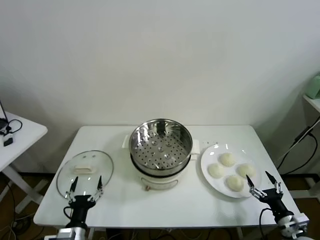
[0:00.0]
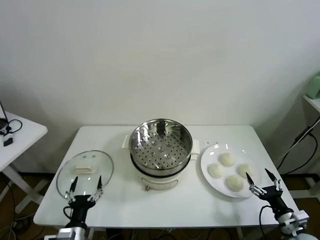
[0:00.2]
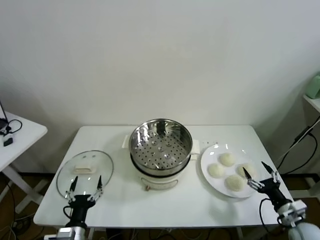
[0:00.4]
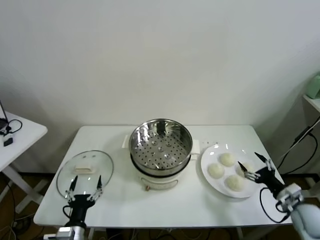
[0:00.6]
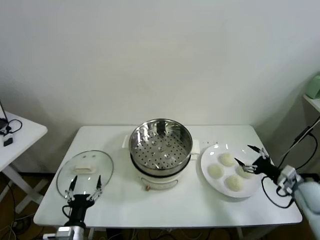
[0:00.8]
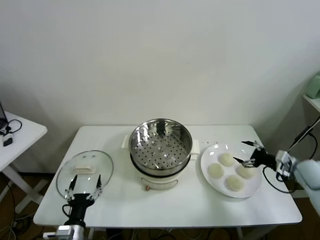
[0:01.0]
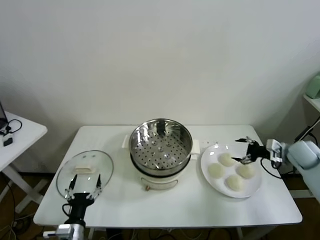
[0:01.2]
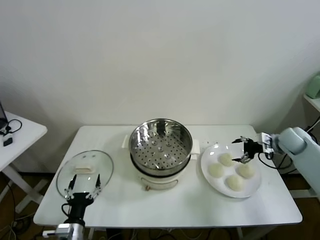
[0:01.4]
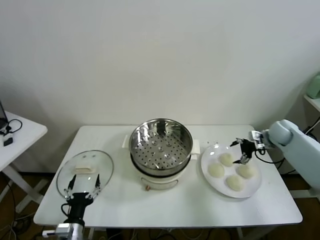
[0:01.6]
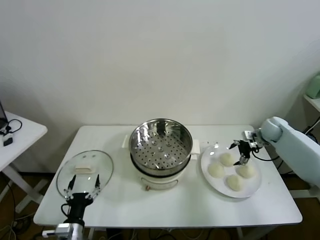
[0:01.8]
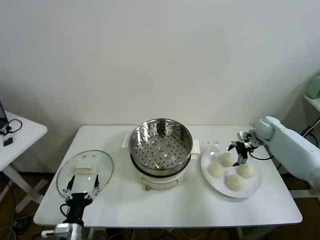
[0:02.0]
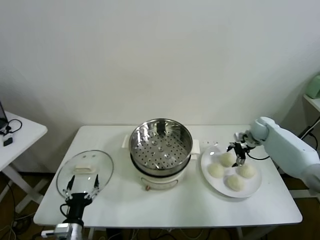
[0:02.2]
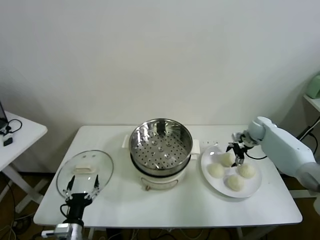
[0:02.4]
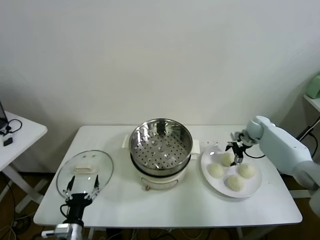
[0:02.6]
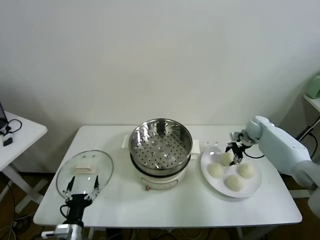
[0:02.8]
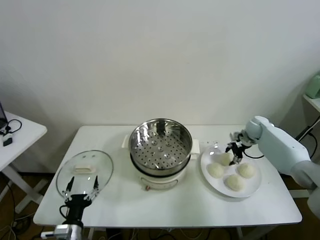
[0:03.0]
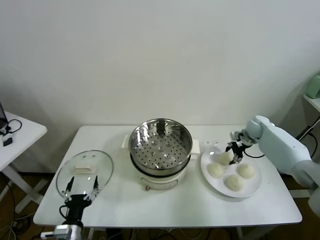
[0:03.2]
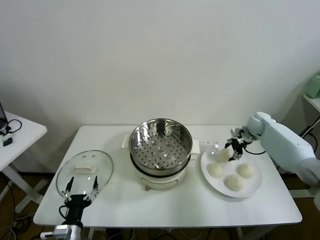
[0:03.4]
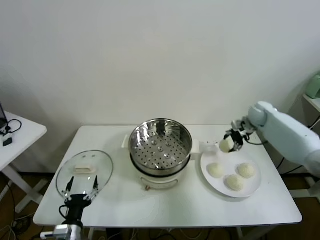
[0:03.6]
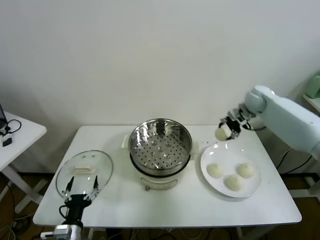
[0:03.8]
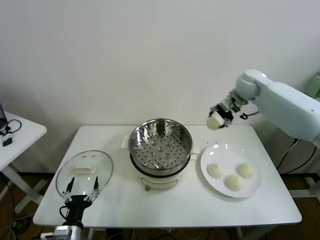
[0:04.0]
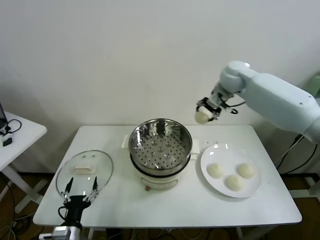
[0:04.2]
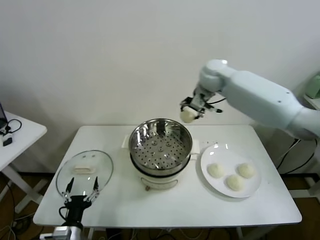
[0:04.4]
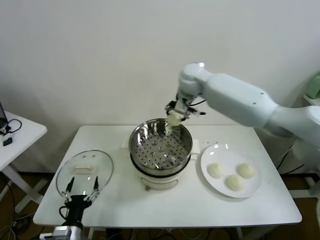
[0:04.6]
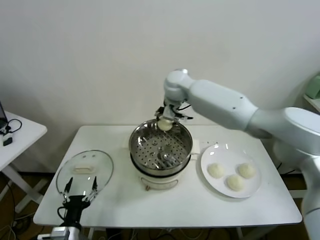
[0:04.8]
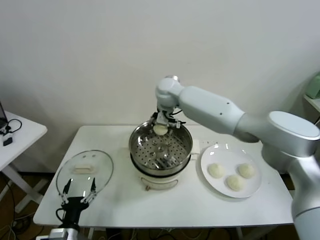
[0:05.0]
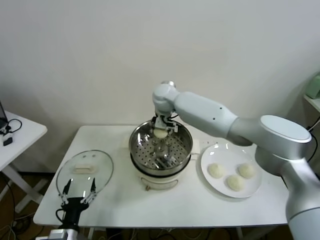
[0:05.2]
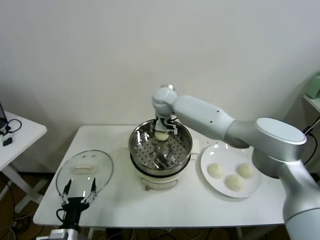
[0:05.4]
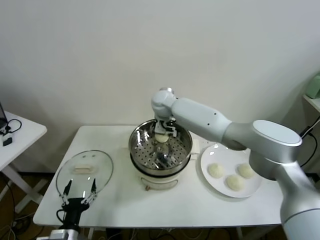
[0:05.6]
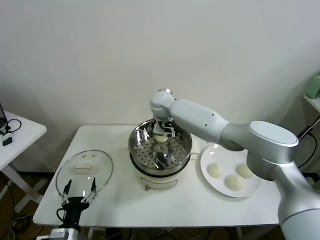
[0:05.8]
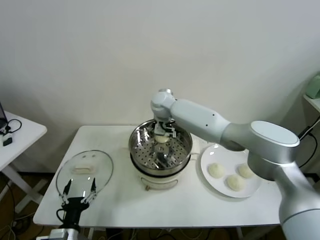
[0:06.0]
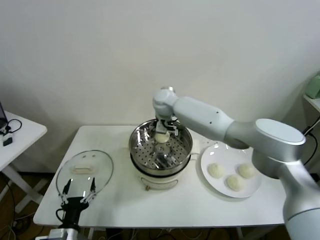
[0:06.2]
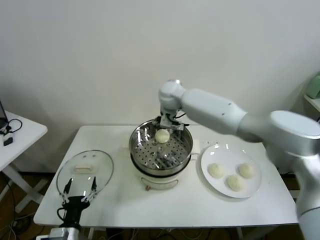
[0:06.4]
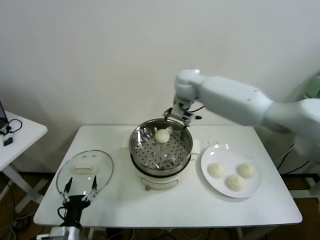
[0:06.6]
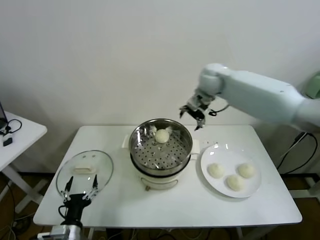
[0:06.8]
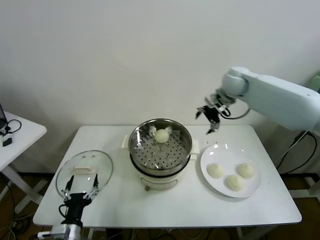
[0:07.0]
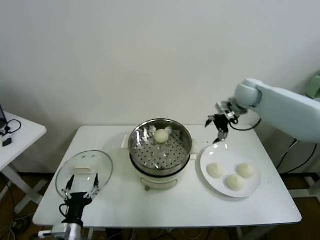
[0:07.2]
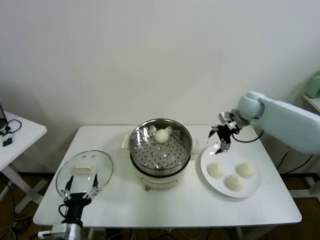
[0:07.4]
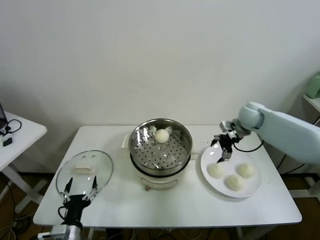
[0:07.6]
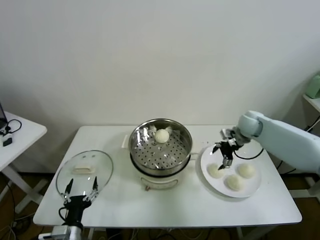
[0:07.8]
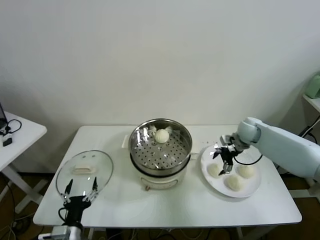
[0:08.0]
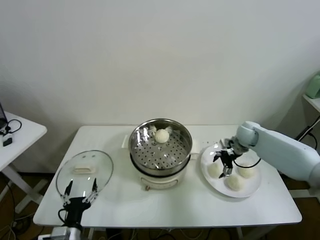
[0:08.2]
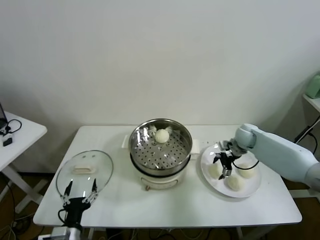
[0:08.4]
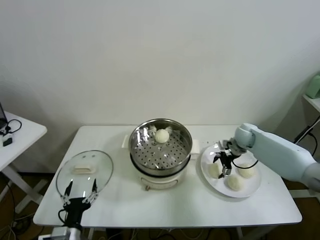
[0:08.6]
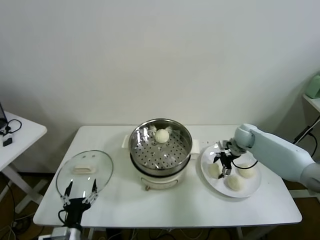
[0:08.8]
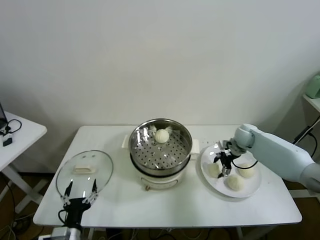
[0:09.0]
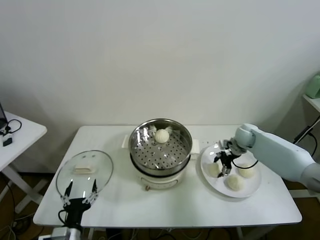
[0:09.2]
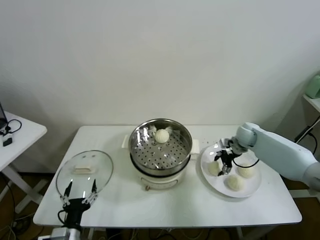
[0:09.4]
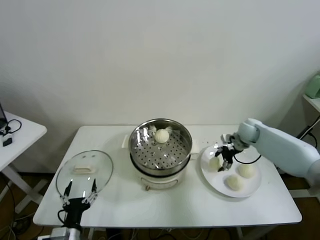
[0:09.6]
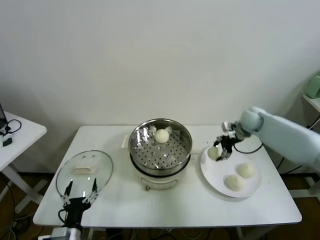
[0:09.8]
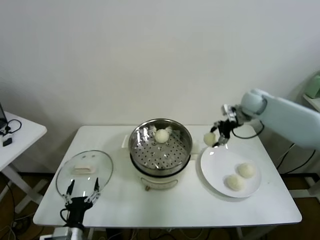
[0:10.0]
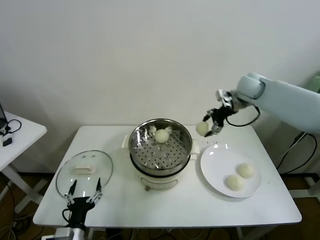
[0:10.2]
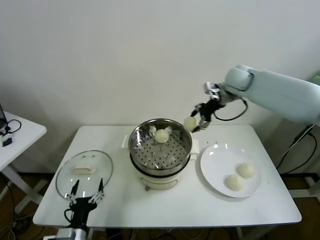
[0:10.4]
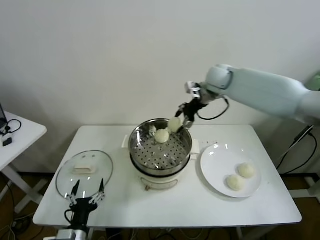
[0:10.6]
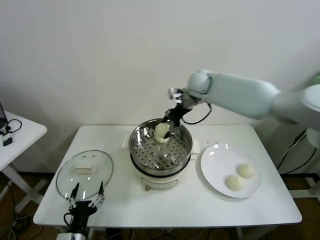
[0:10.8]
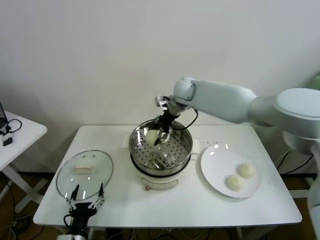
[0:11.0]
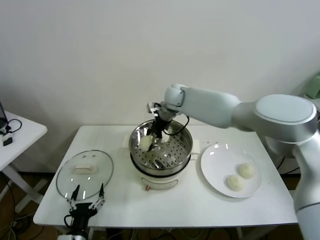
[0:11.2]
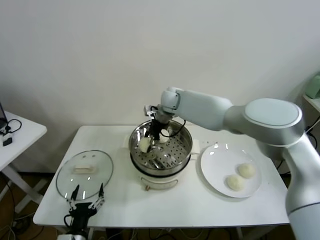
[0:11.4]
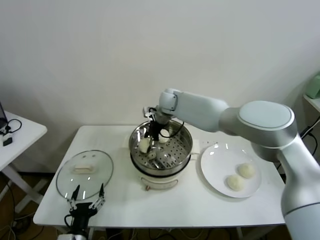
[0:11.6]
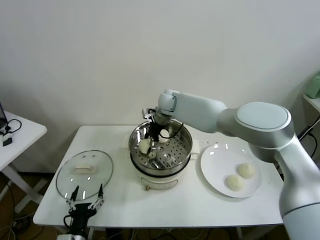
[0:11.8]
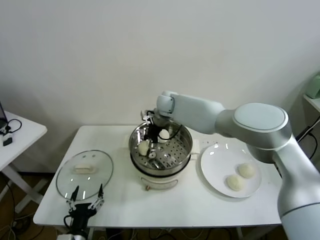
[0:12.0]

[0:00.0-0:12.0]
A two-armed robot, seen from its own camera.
Task of the whole recording: take steamed baozi put them in steamer.
Step, 0:00.0 to 0:03.0: Grasp the baozi in the plate with right gripper.
Step, 0:03.2 to 0:06.2: Place the baozi on the steamer with right gripper.
Step, 0:06.4 to 0:09.0: Grasp the baozi in the plate with right gripper.
0:01.6 to 0:03.0: The right gripper goes about 5 cm forward, and closes.
0:03.0 to 0:04.4: The right gripper travels to the left and upward by some 35 cm.
0:04.4 to 0:06.0: The right gripper heads to the left and downward, covering approximately 15 cm, and opens.
0:06.0 to 0:07.6: The right gripper is displaced to the right by approximately 35 cm.
0:07.6 to 0:09.0: The right gripper travels downward by some 10 cm.
0:09.0 to 0:10.4: The right gripper shifts roughly 25 cm upward and to the left.
0:10.4 to 0:12.0: The right gripper moves to the left and downward, some 25 cm.

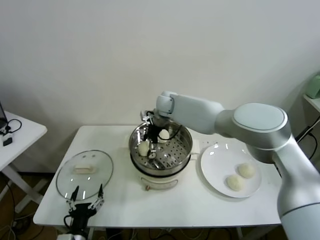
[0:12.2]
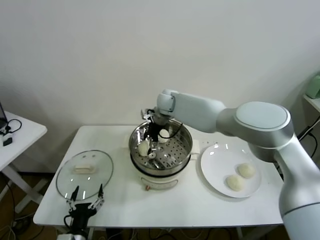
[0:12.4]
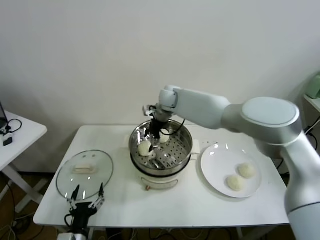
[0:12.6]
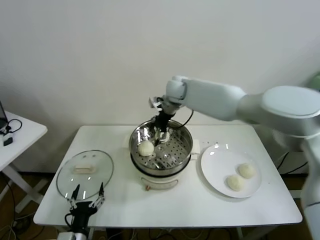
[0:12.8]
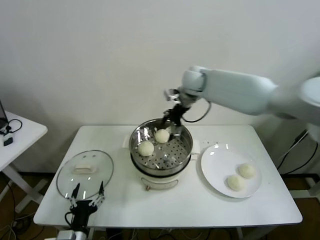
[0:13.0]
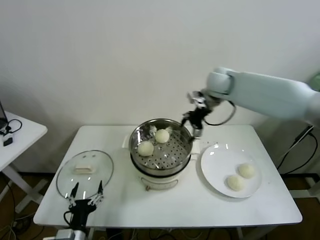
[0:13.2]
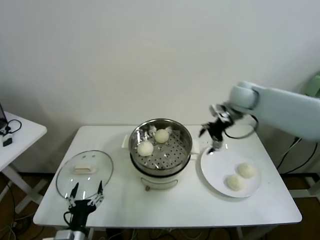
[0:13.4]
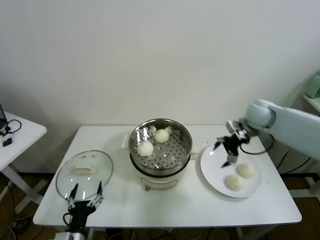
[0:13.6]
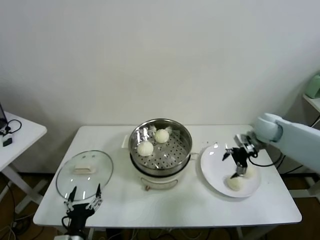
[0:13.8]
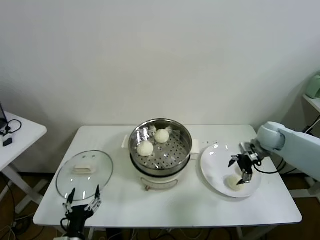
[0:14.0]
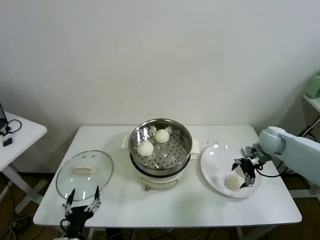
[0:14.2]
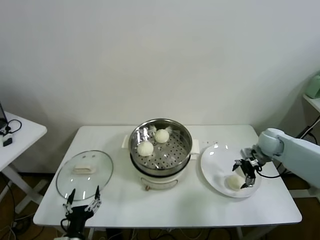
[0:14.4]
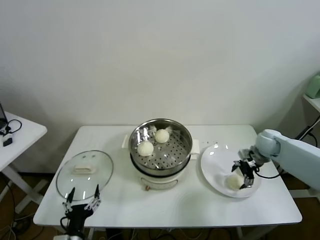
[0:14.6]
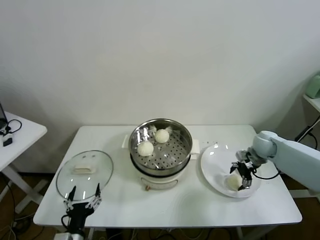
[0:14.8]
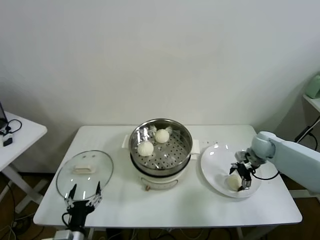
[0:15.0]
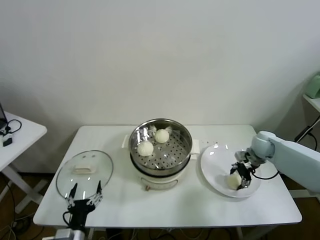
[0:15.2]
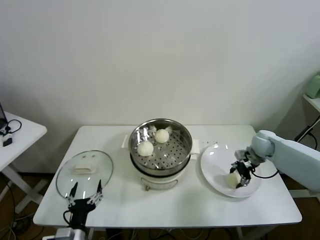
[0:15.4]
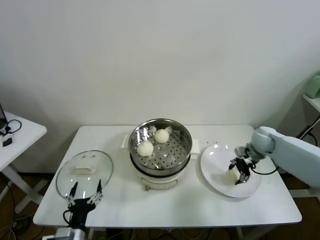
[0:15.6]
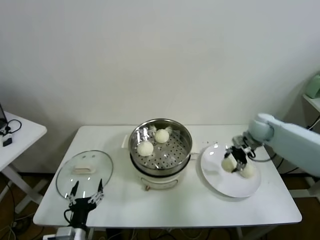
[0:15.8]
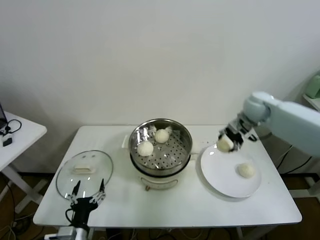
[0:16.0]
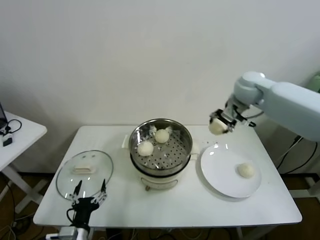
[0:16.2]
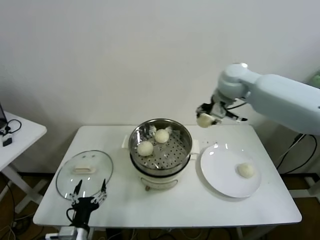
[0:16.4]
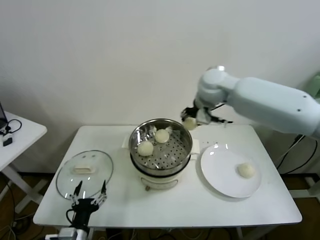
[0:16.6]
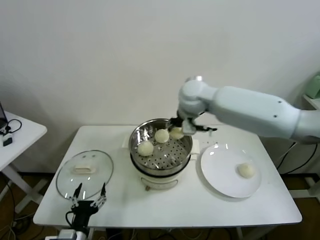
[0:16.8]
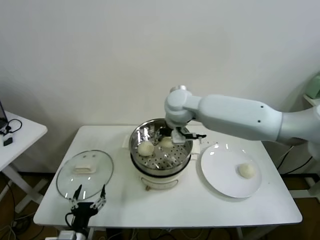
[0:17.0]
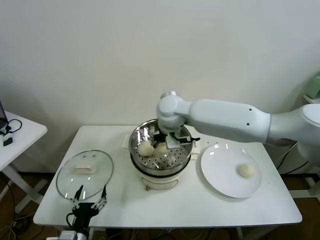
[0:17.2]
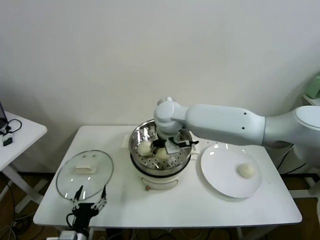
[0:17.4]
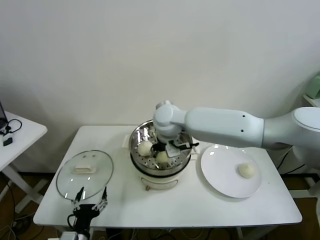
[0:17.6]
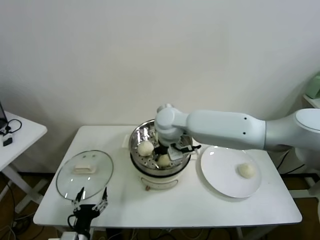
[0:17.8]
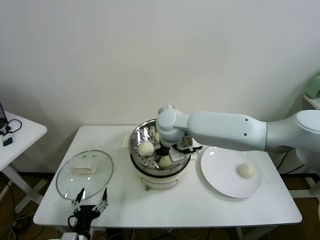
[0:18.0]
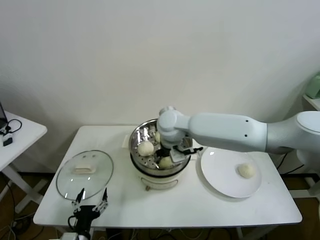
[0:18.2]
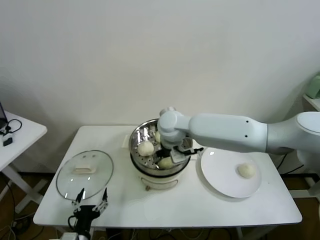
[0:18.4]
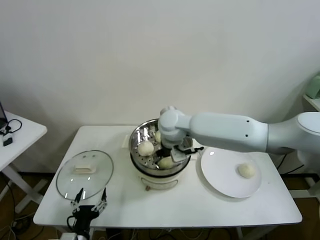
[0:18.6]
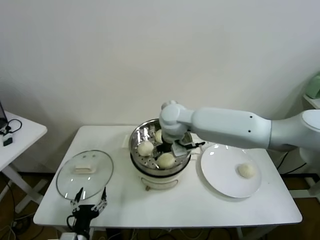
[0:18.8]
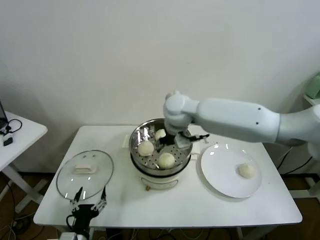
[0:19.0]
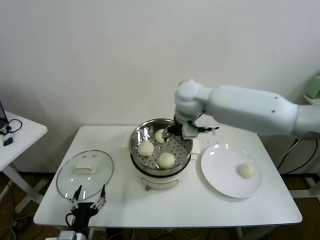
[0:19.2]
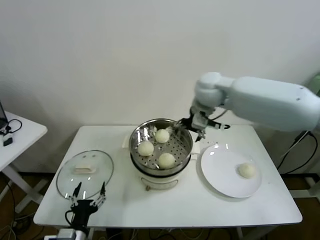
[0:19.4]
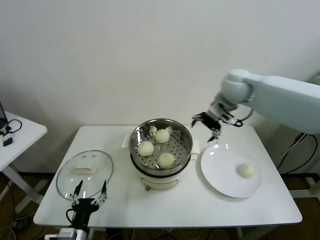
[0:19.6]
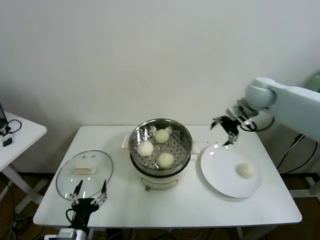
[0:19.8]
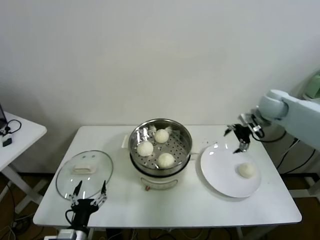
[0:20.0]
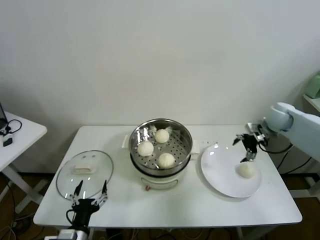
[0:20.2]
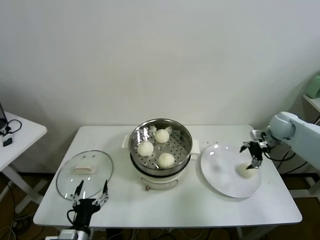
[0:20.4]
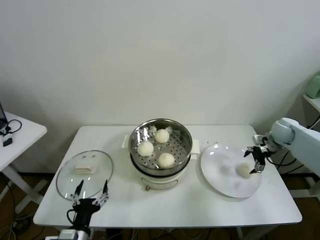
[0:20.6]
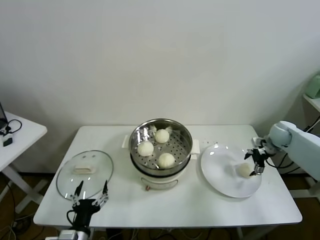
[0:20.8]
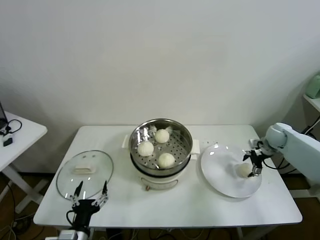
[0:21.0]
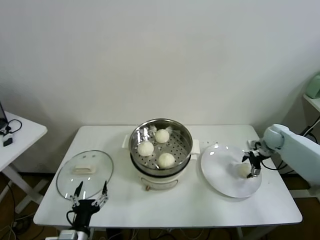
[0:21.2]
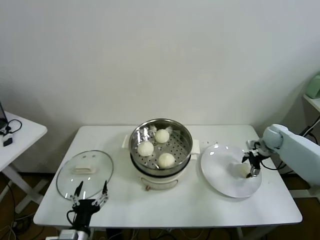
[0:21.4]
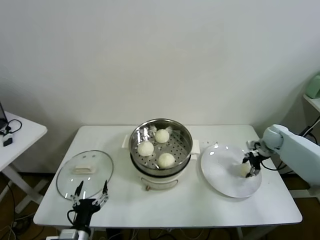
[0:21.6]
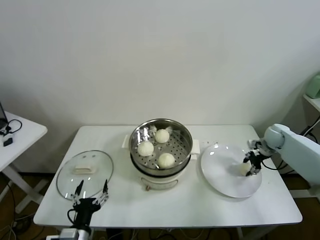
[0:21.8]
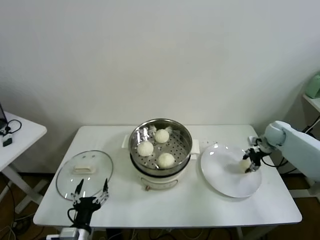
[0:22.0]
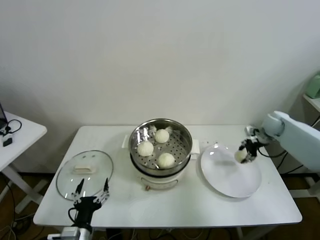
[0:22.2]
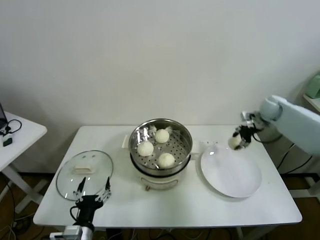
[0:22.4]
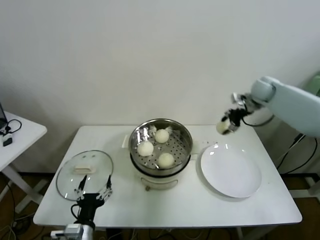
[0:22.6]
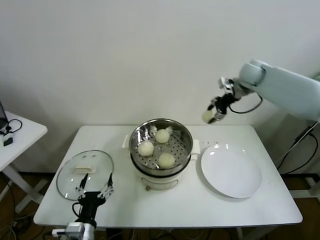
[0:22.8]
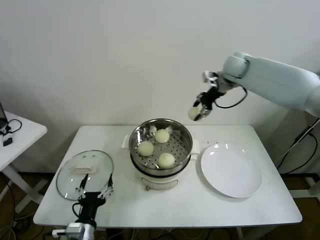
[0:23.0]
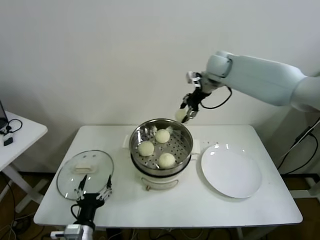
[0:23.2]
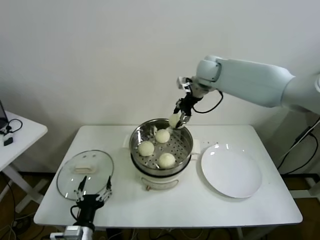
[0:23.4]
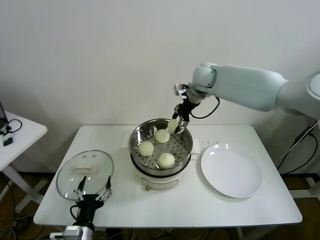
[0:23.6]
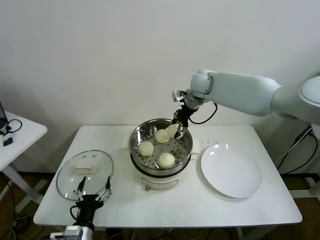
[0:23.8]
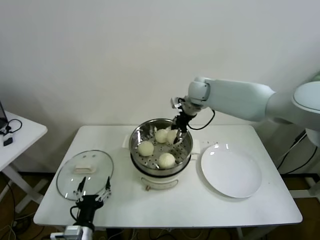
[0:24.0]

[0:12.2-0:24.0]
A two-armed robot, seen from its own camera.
Task of the whole recording: take steamed baozi put them in steamer.
Step, 0:12.8 to 0:15.2: Grasp the baozi in the plate with right gripper.
Step, 0:15.4 to 0:18.6: Place the baozi on the steamer with right gripper.
Step, 0:18.8 to 0:21.4: Grasp the baozi in the plate with right gripper.
0:12.2 to 0:13.6: The right gripper heads to the right, covering about 35 cm.
0:13.6 to 0:15.2: The right gripper shifts approximately 10 cm downward, and closes its fingers.
0:15.2 to 0:16.6: The right gripper shifts about 35 cm to the left and upward.
0:16.6 to 0:18.2: The right gripper moves to the left, downward and backward, some 15 cm.
0:18.2 to 0:19.6: The right gripper heads to the right and upward, covering approximately 20 cm, and opens its fingers.
0:19.6 to 0:21.0: The right gripper moves to the right and downward, about 35 cm.
0:21.0 to 0:22.6: The right gripper shifts approximately 20 cm upward, to the left and forward, and closes up.
0:22.6 to 0:24.0: The right gripper shifts roughly 25 cm to the left.
